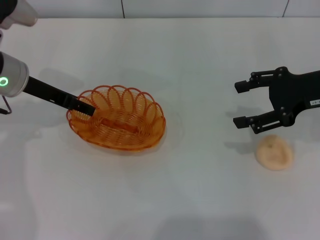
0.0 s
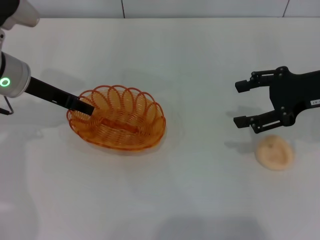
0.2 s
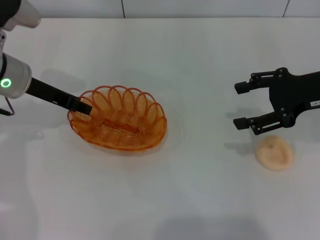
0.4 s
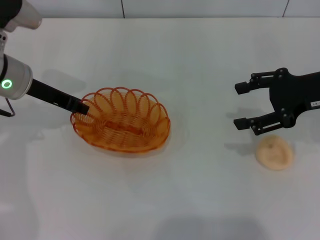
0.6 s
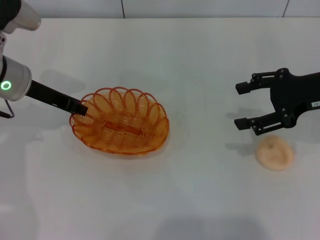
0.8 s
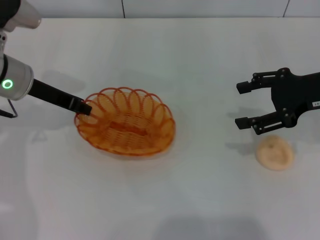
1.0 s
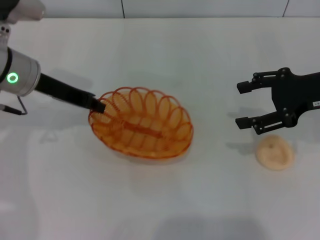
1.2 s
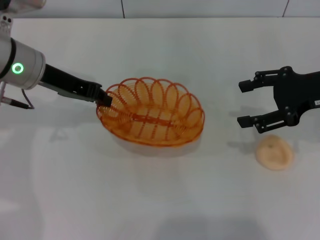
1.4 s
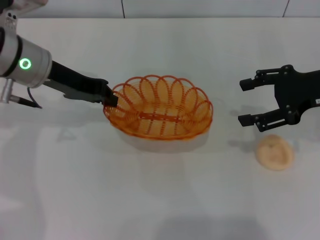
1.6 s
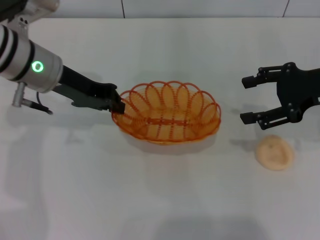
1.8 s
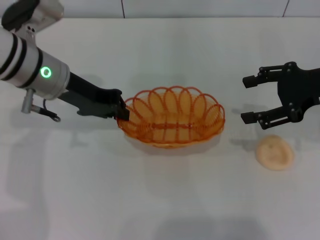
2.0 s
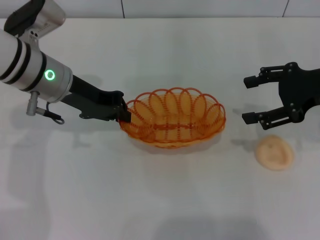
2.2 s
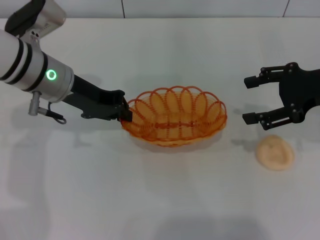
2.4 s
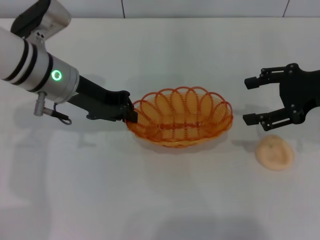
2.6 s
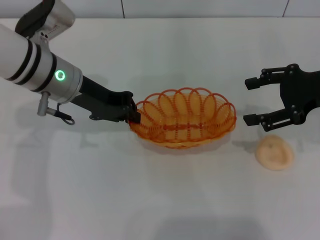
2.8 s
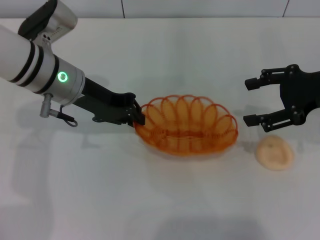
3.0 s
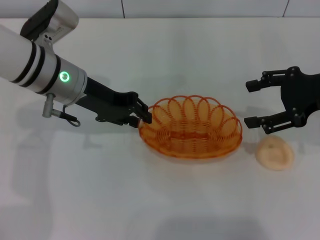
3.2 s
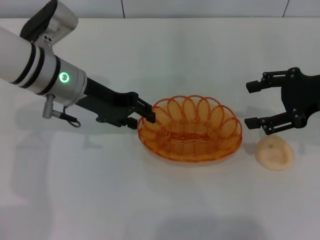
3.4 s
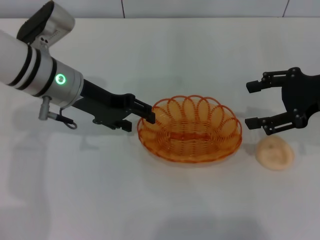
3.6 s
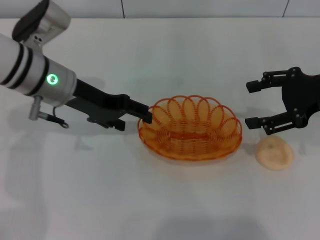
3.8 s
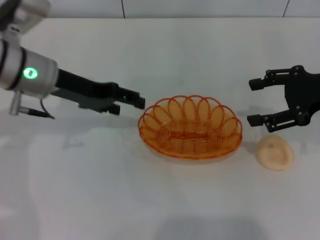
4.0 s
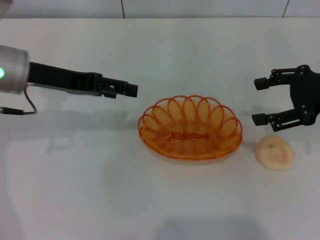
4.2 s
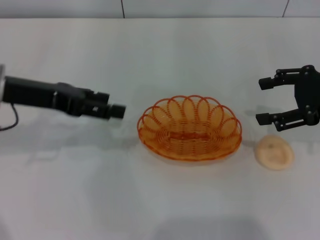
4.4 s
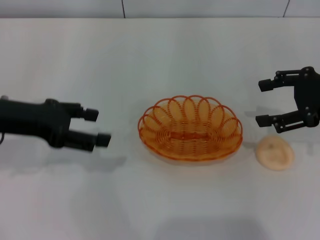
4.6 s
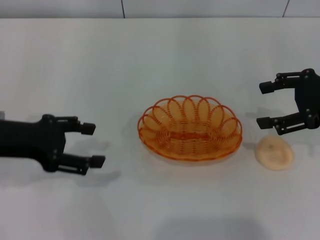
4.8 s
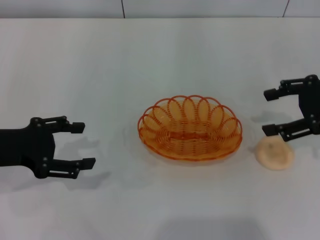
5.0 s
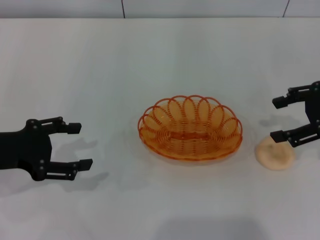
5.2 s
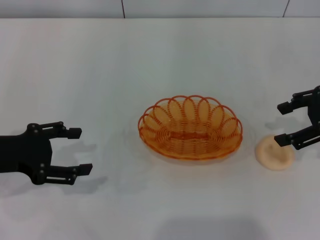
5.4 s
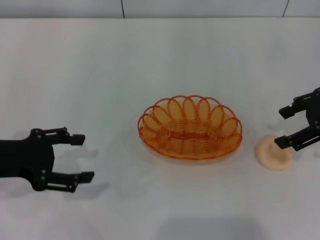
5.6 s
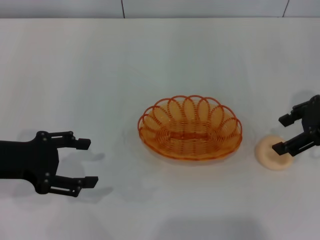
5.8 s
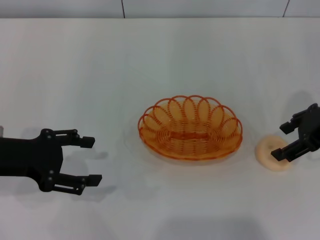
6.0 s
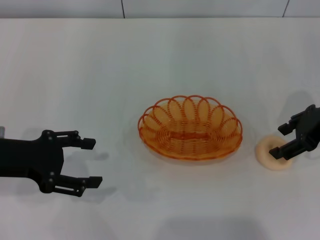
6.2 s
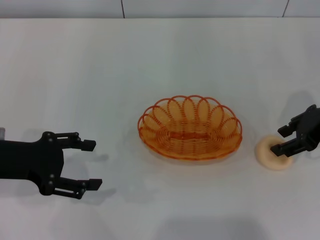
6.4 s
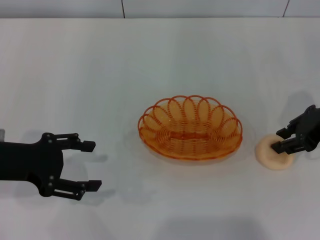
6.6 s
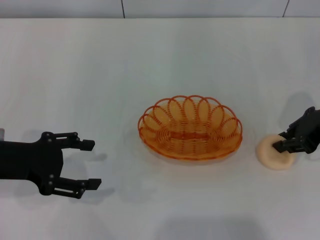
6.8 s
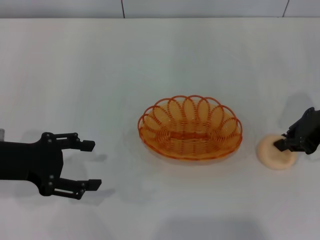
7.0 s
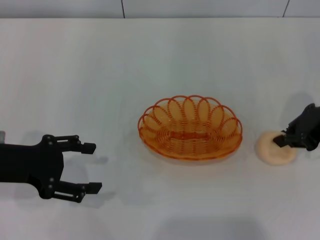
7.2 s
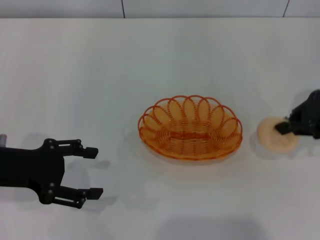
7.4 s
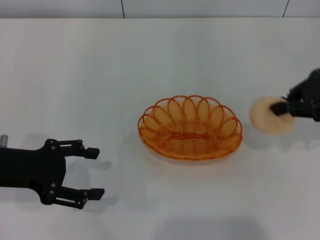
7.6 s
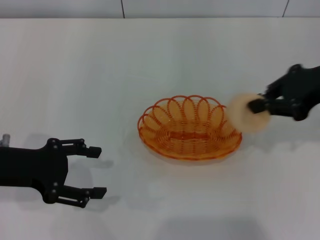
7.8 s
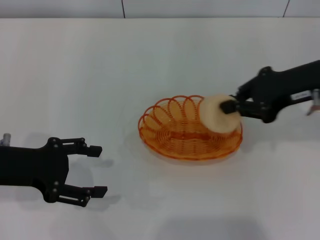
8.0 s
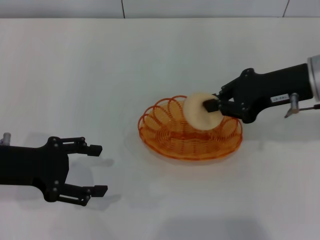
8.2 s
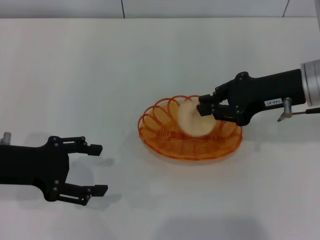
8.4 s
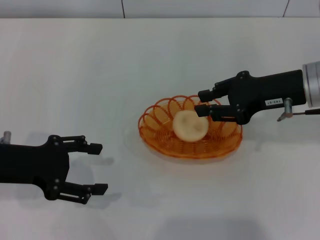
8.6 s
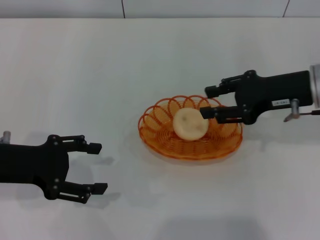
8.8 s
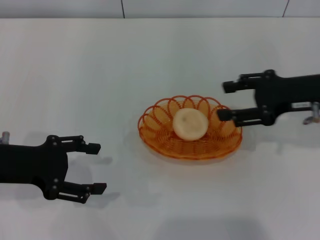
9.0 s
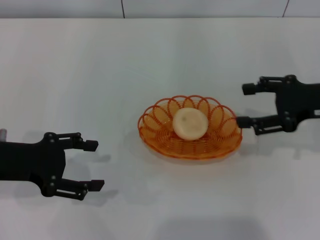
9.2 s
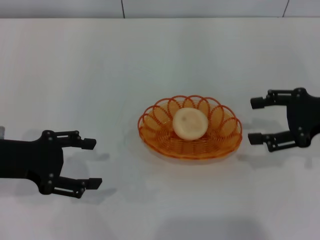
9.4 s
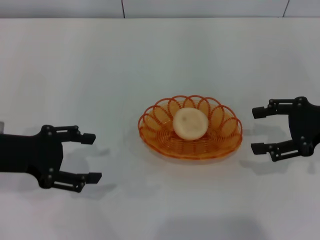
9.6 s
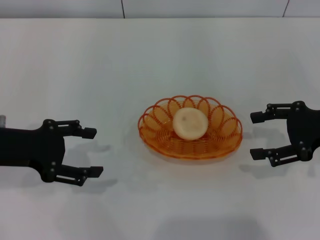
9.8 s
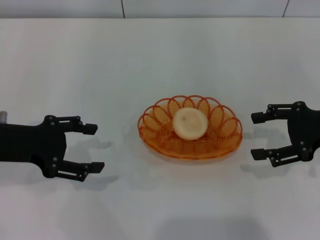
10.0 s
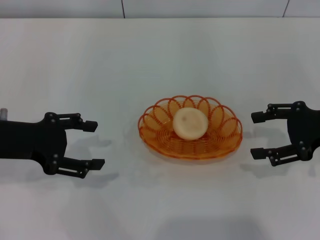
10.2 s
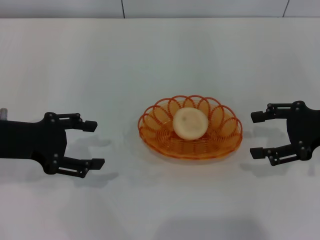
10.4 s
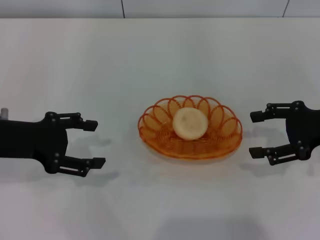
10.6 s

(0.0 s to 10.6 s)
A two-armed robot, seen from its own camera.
Step, 1.8 s - 4.2 s: Place the basket in the center of view with the left gripper.
Step, 4.4 s - 7.2 s: Pick up the egg yolk pastry with the right gripper.
Step, 7.4 s - 9.0 s: Place the egg yolk pastry into the basket with the right gripper.
0.0 s - 1.6 s: The left gripper closes up.
1.6 s - 3.0 s: The grippers stay close to where they were, moving slightly.
3.0 s - 4.6 s: The left gripper goes some 15 cm to the left and backward, and opens up.
4.6 s - 6.0 s: The left gripper changes place by some 5 cm.
6.0 s - 7.6 s: The right gripper goes about 5 cm upward, and closes.
7.6 s - 9.0 s: The right gripper travels downward by about 5 cm, and opens up.
9.0 s - 10.6 s: The right gripper ends up roughly 5 cm from where it was, and opens its fingers.
